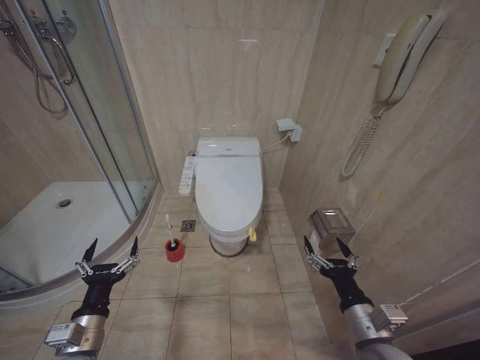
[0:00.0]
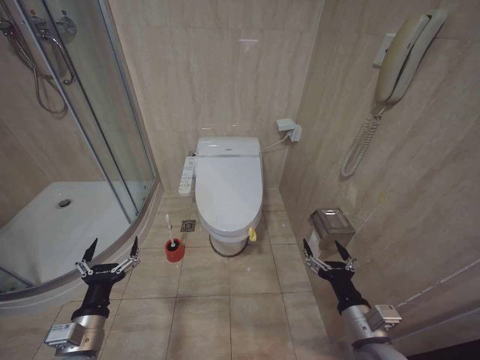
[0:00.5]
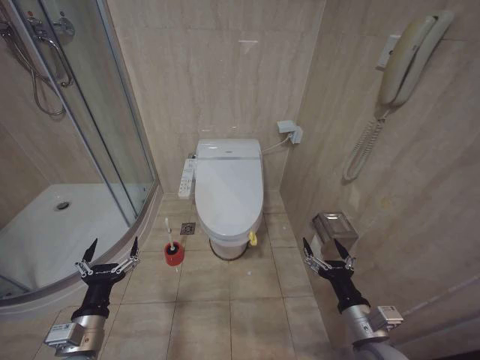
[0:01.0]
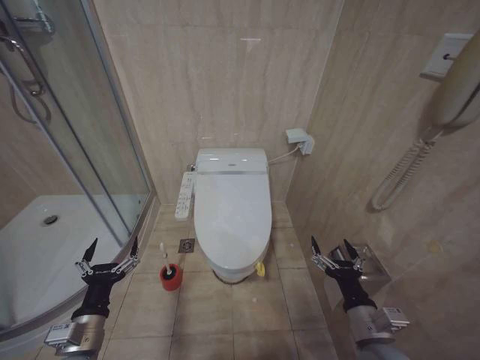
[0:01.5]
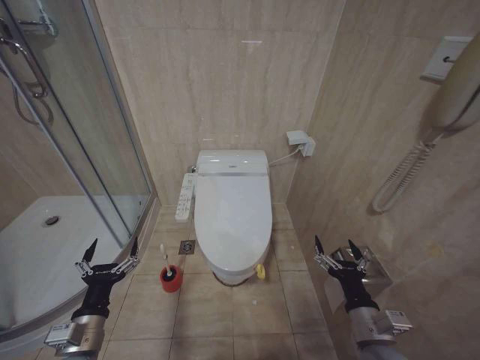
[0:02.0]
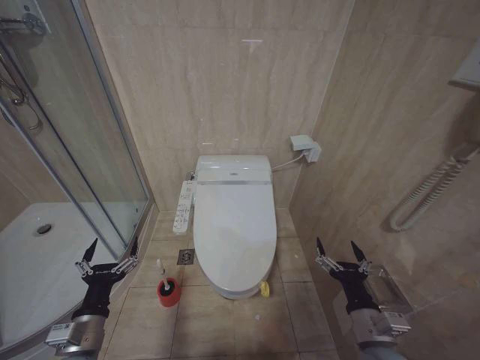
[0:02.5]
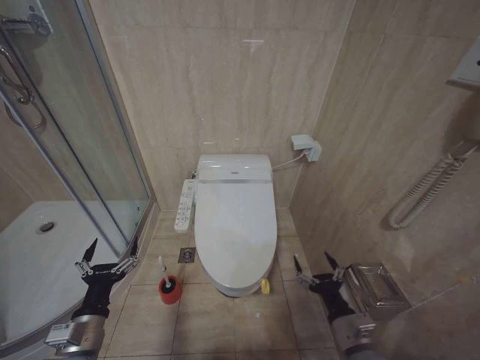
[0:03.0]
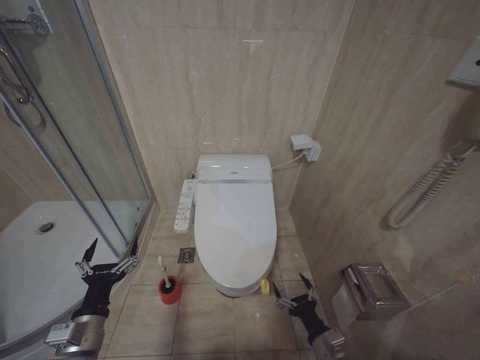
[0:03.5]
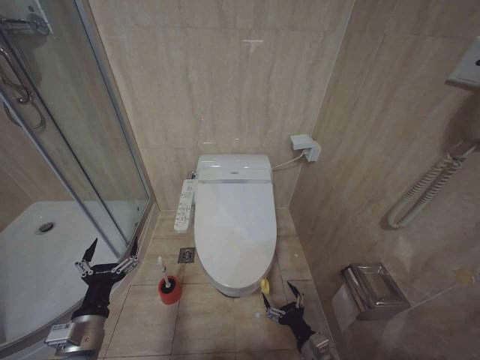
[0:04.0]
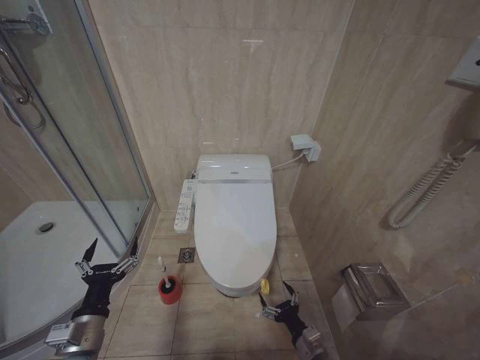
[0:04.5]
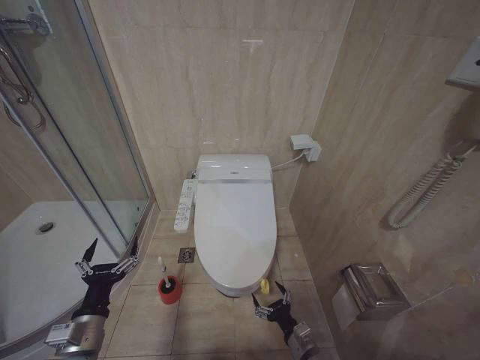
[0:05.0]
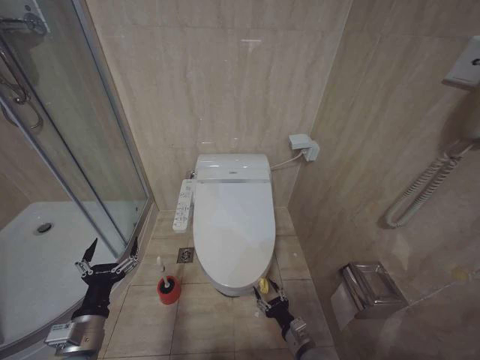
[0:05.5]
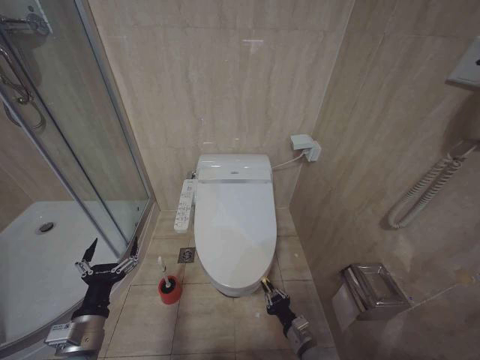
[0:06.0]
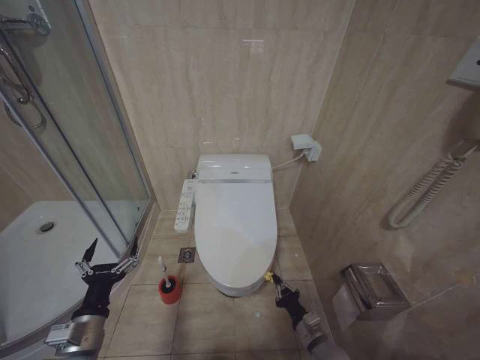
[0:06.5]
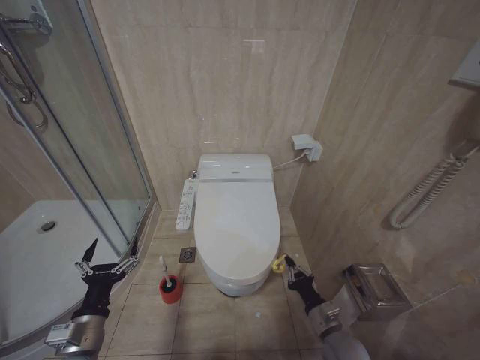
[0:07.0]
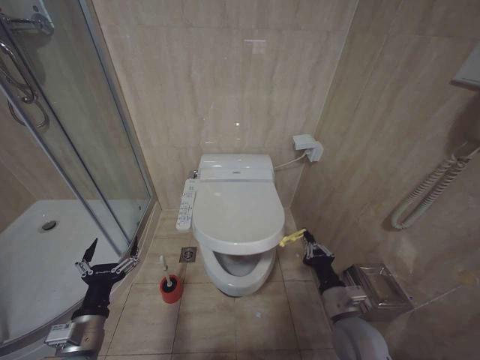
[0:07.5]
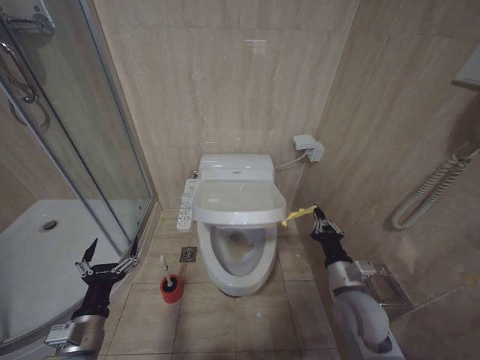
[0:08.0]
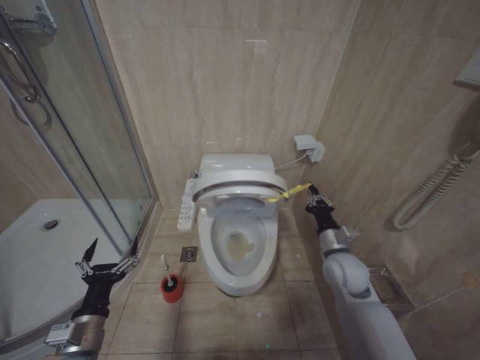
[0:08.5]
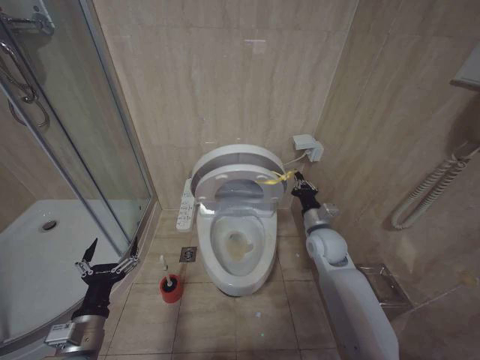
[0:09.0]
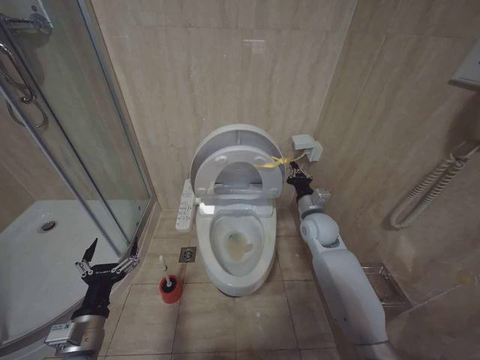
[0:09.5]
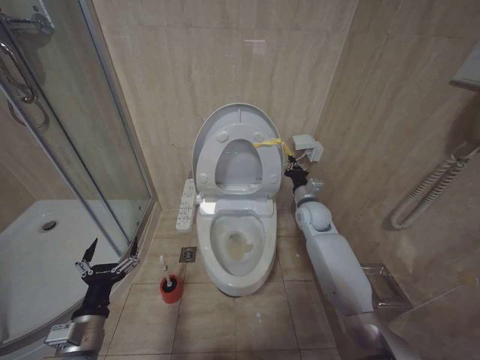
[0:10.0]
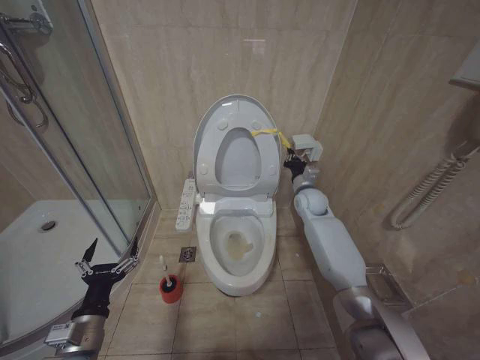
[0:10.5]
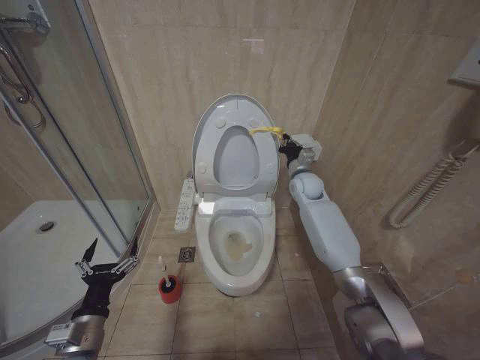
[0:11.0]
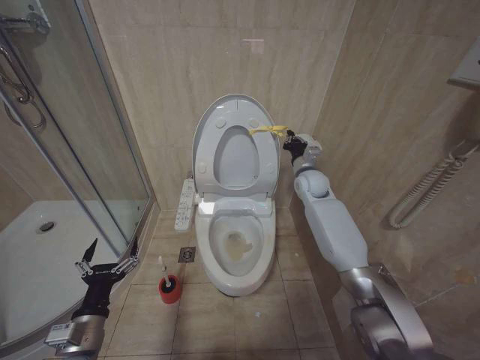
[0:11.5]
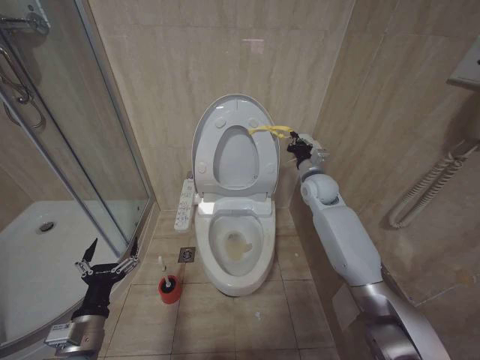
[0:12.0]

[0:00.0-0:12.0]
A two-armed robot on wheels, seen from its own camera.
Task of the whole recording: Open the toilet lid, clean the toilet bowl with a toilet brush, close the toilet lid, and flush.
0:02.0 to 0:04.0: The right gripper goes about 15 cm downward.
0:04.0 to 0:06.0: The right gripper moves approximately 5 cm, and closes up.
0:06.0 to 0:08.0: The right gripper shifts some 20 cm upward.
0:08.0 to 0:10.0: The right gripper heads forward, covering approximately 25 cm.
0:10.0 to 0:12.0: The right gripper travels upward by roughly 10 cm.

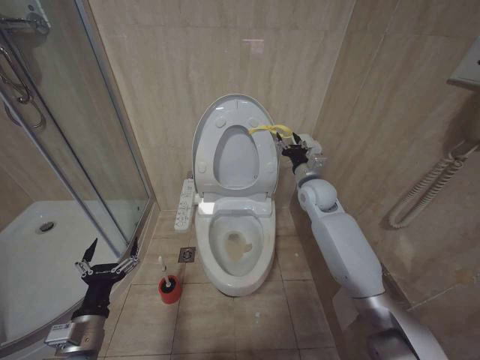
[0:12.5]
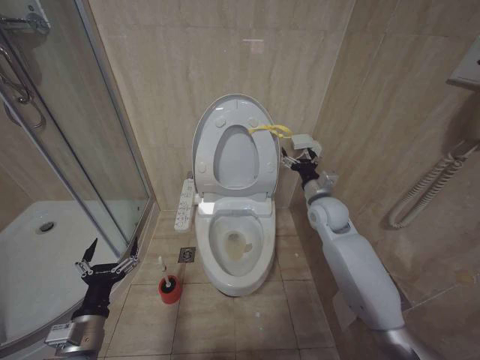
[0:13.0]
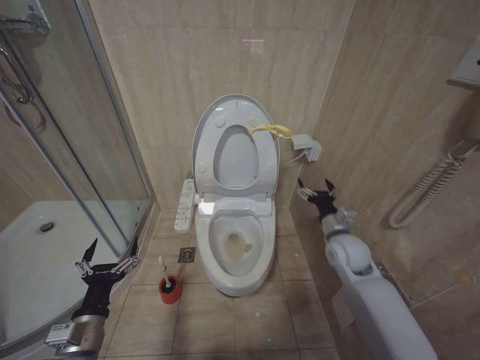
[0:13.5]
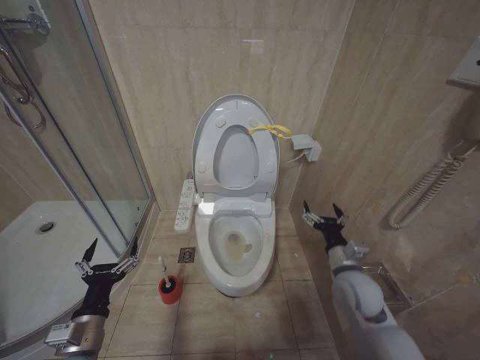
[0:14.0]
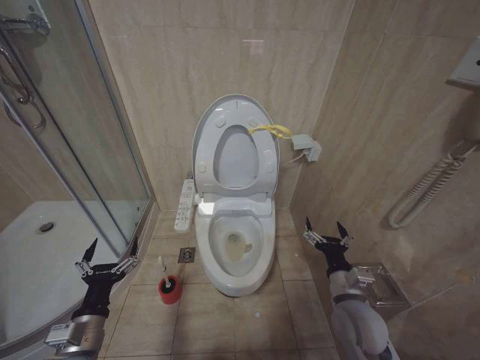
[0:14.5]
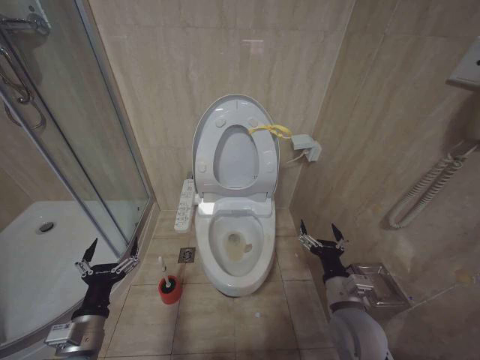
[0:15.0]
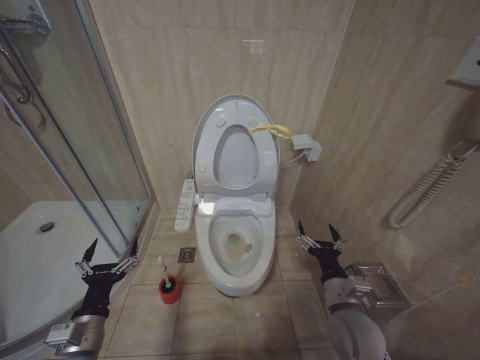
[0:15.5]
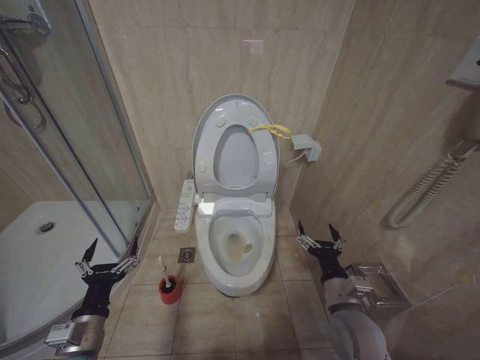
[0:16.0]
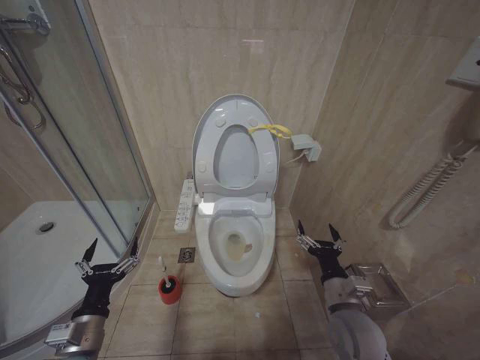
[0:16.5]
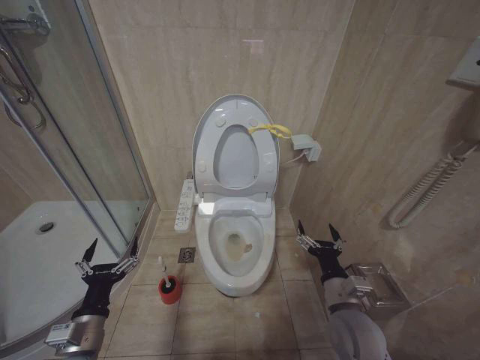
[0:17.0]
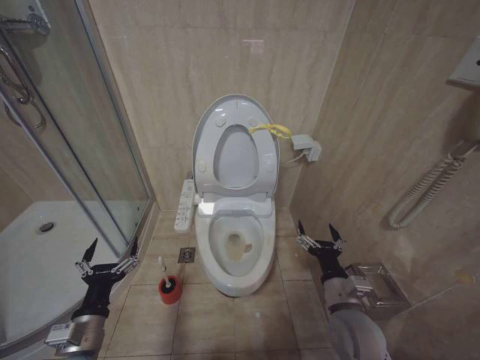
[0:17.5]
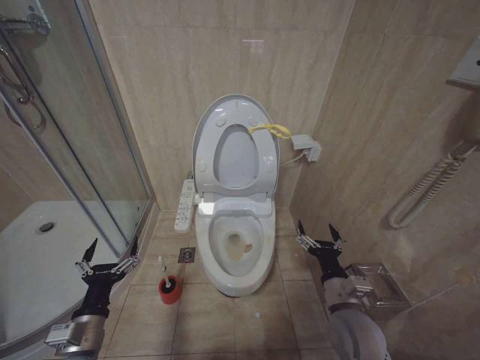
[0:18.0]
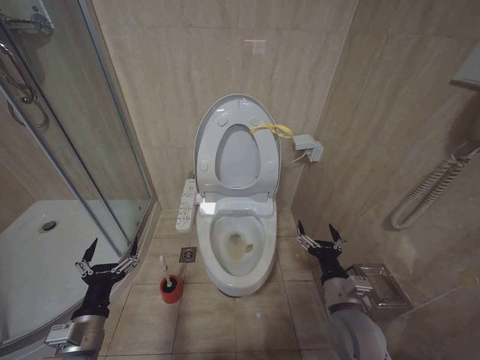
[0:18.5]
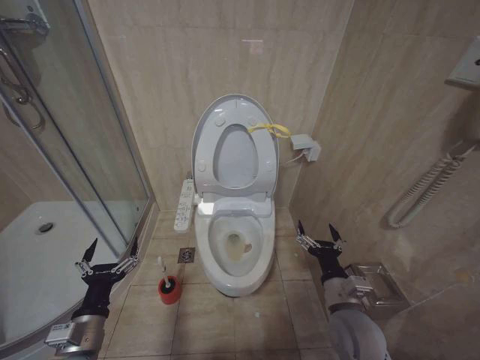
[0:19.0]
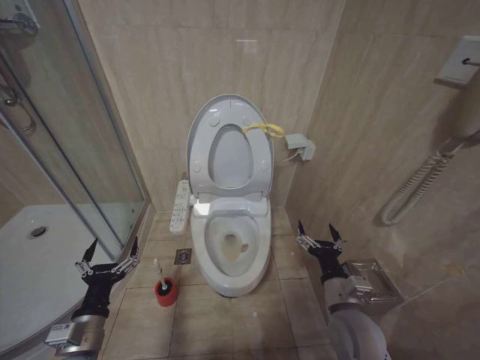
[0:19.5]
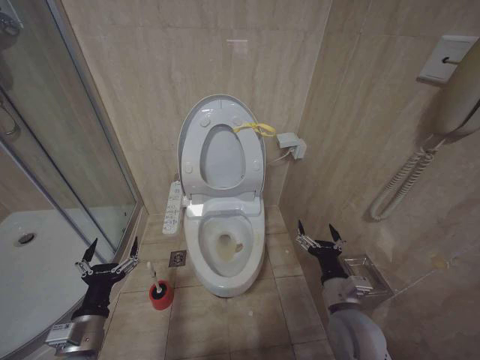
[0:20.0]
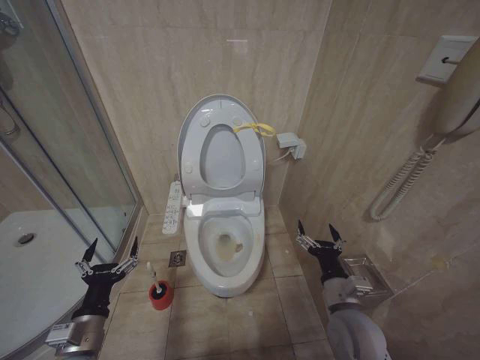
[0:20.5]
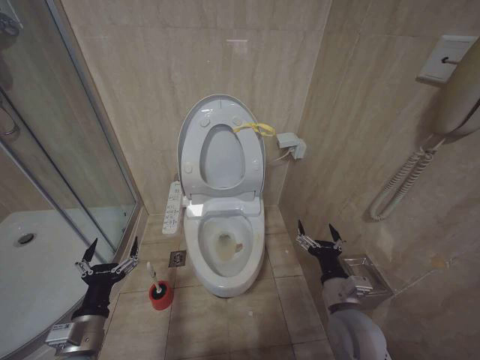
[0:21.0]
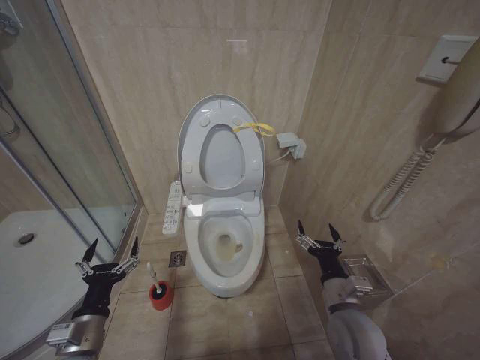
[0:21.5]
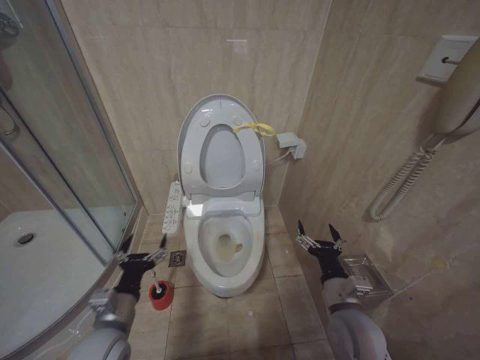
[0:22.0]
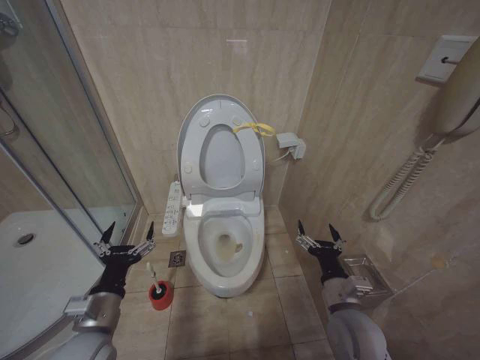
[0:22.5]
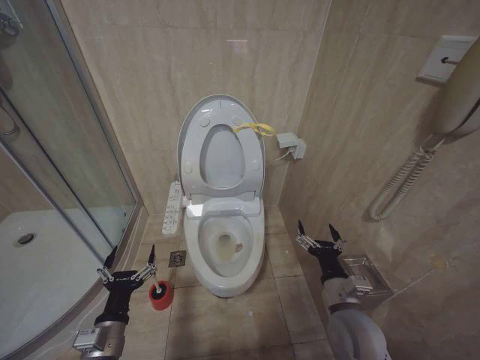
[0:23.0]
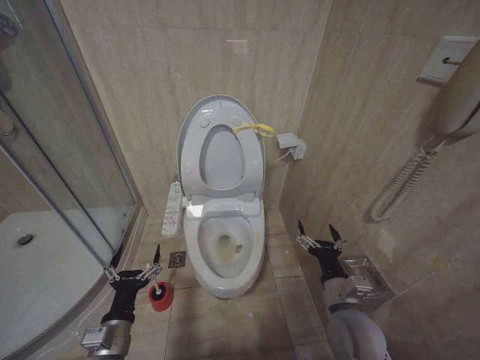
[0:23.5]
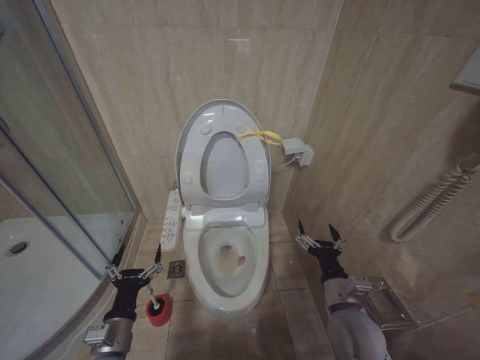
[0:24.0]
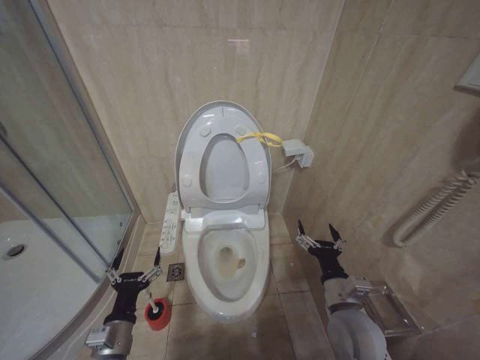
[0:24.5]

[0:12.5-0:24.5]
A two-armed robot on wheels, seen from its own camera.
Task of the whole recording: Open the toilet lid, clean the toilet bowl with a toilet brush, close the toilet lid, and flush.
0:12.5 to 0:14.5: The right gripper moves backward and downward, some 30 cm, and opens.
0:14.5 to 0:16.5: There are only small adjustments of the grippers.
0:16.5 to 0:20.5: Neither gripper changes place.
0:20.5 to 0:22.5: The left gripper changes place by some 5 cm.
0:22.5 to 0:24.5: The left gripper travels downward by approximately 10 cm.

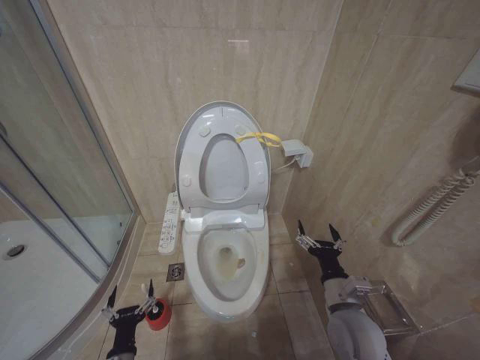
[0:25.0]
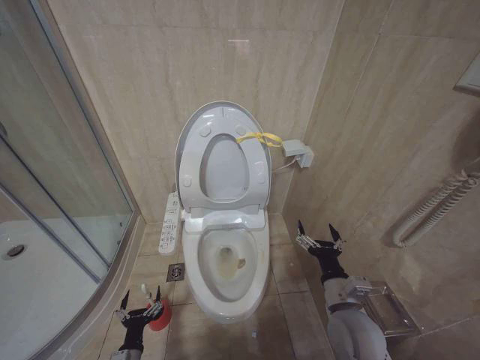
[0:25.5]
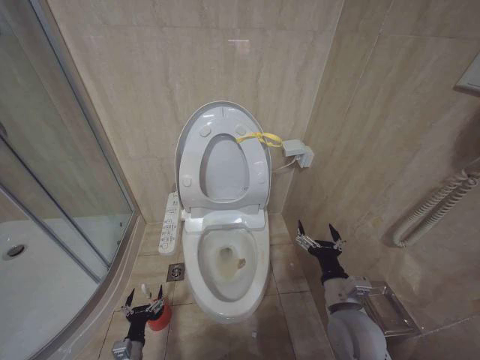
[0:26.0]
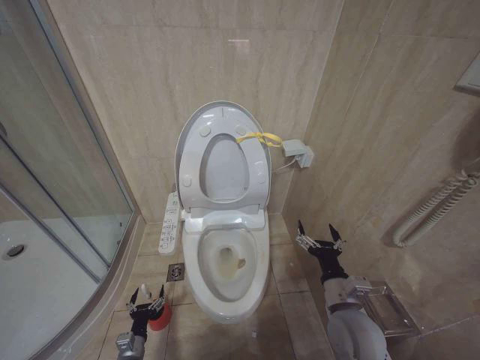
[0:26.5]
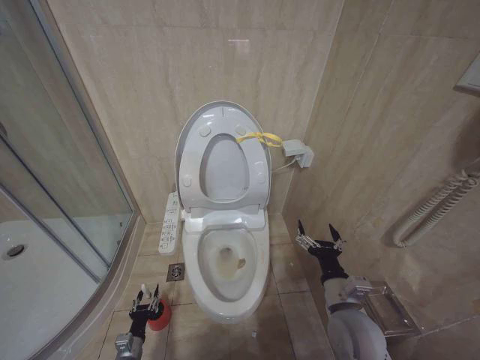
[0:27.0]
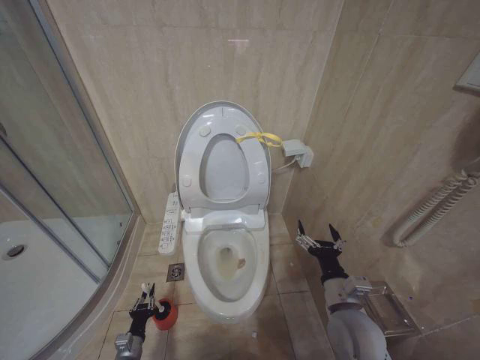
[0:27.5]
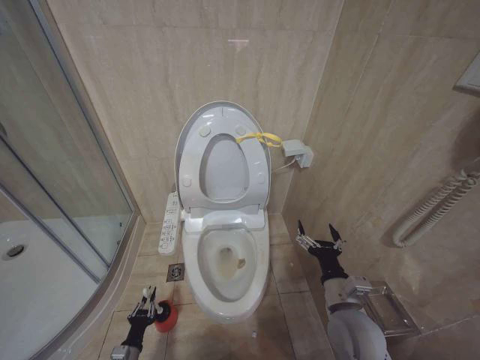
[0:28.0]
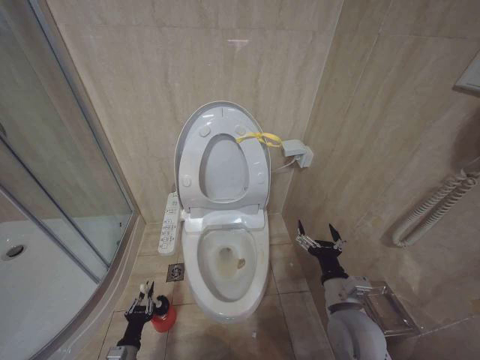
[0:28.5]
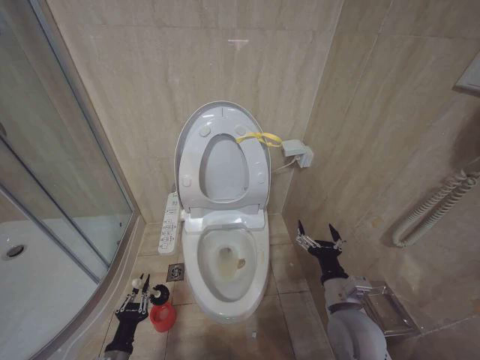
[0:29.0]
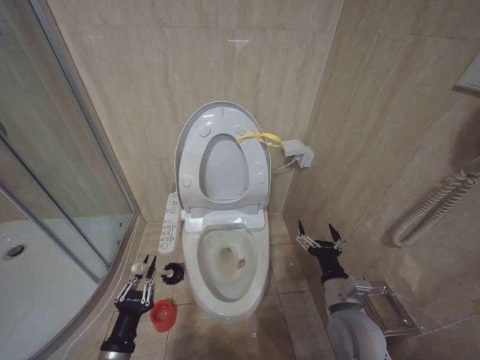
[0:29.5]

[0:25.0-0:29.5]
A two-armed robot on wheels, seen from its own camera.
Task of the whole recording: Open the toilet lid, clean the toilet bowl with a toilet brush, close the toilet lid, and flush.
0:25.0 to 0:27.0: The left gripper travels downward and forward by some 15 cm.
0:27.0 to 0:29.5: The left gripper heads upward and backward, covering approximately 25 cm, and closes its fingers.
